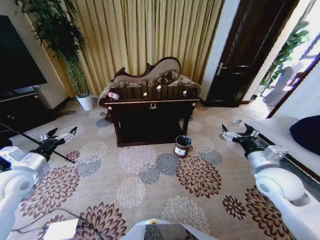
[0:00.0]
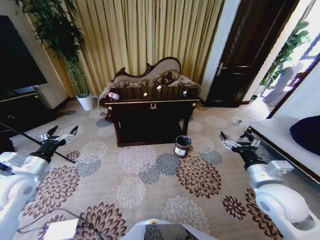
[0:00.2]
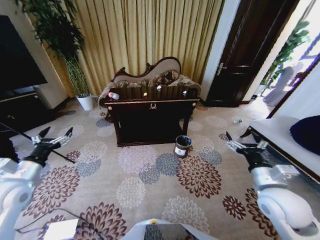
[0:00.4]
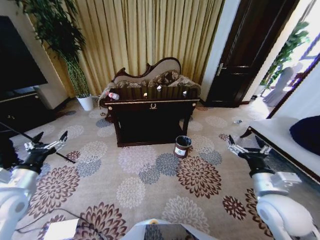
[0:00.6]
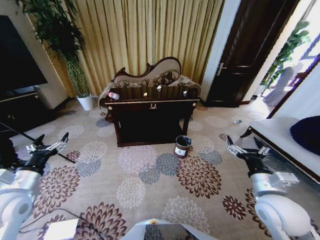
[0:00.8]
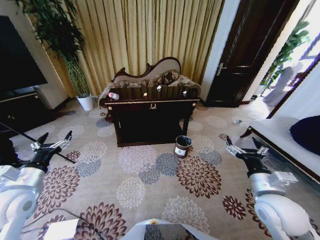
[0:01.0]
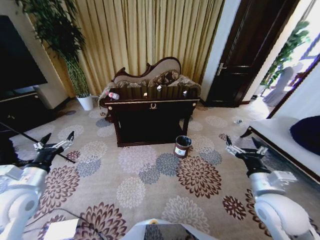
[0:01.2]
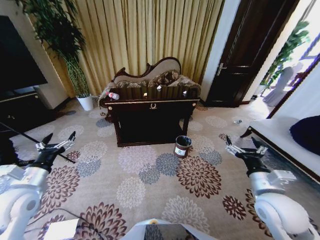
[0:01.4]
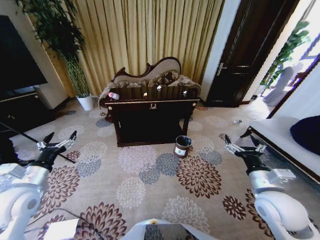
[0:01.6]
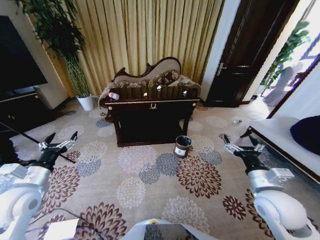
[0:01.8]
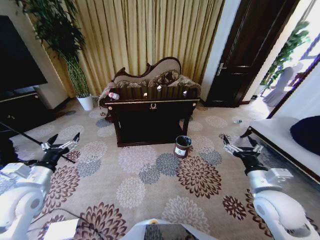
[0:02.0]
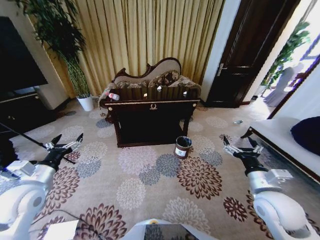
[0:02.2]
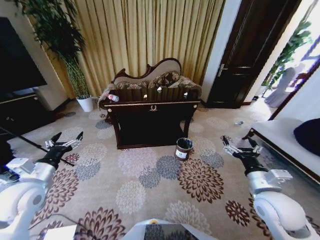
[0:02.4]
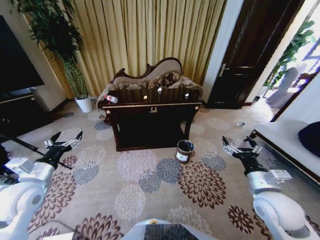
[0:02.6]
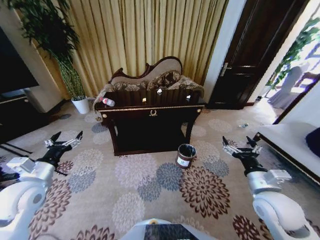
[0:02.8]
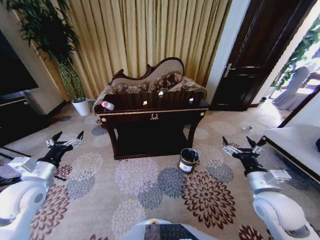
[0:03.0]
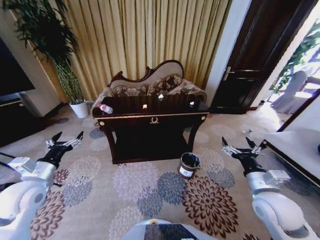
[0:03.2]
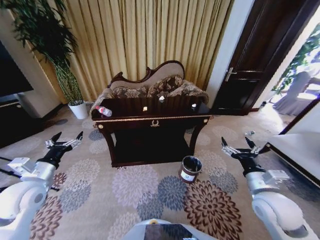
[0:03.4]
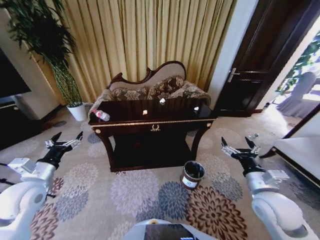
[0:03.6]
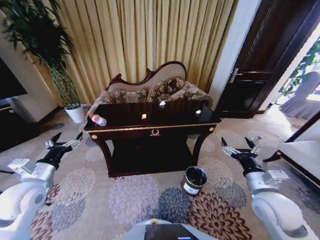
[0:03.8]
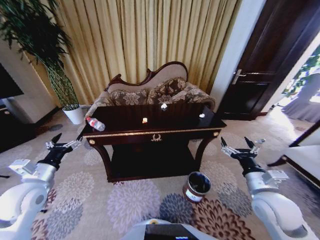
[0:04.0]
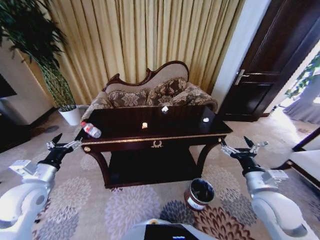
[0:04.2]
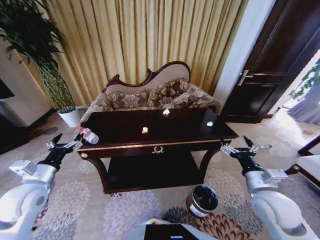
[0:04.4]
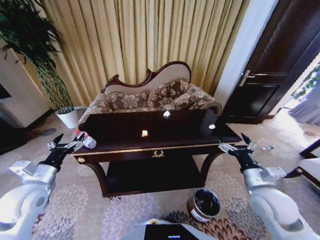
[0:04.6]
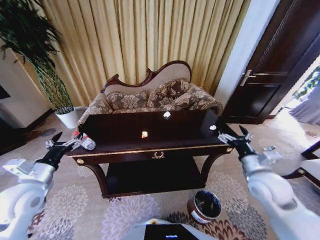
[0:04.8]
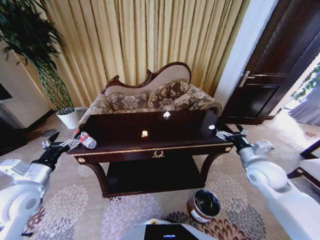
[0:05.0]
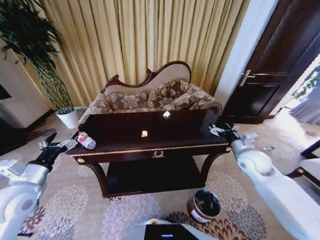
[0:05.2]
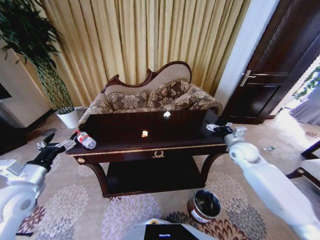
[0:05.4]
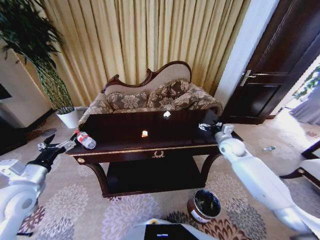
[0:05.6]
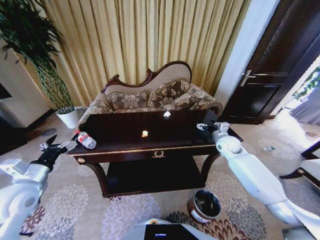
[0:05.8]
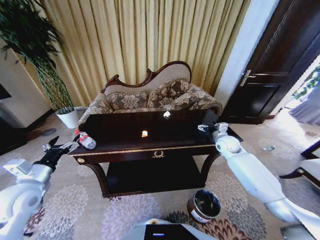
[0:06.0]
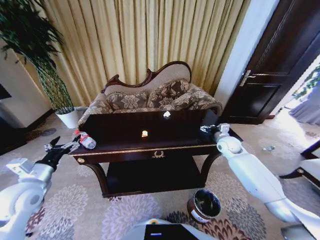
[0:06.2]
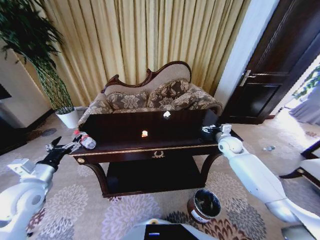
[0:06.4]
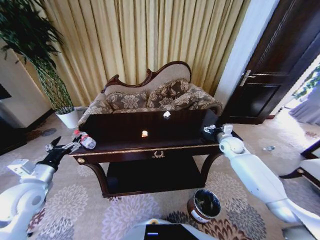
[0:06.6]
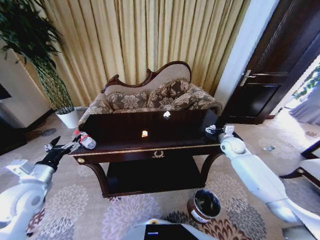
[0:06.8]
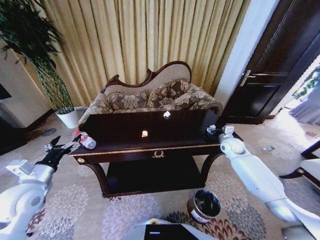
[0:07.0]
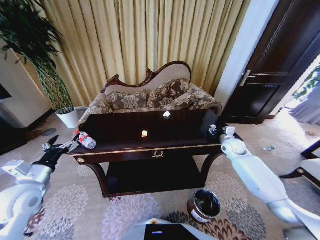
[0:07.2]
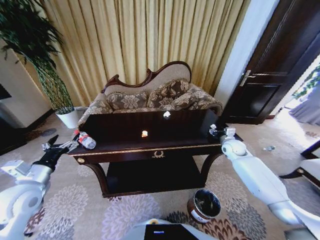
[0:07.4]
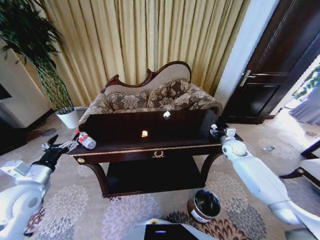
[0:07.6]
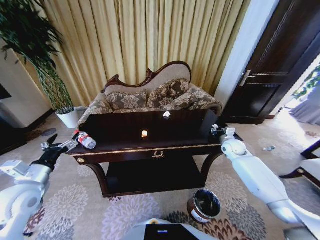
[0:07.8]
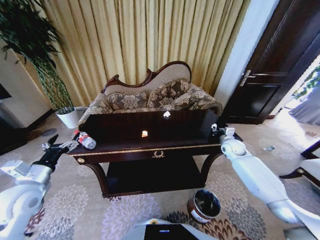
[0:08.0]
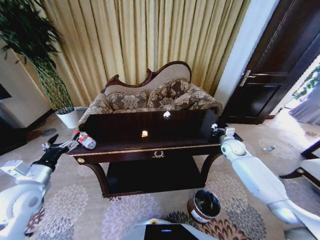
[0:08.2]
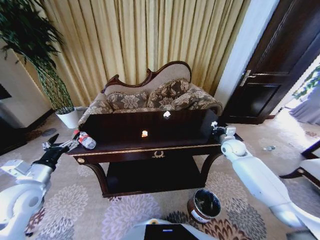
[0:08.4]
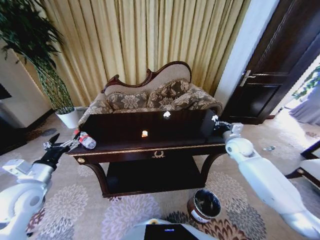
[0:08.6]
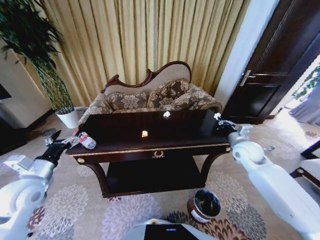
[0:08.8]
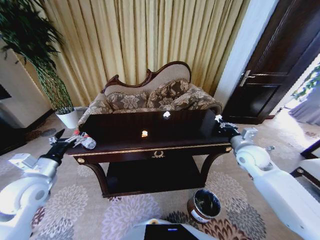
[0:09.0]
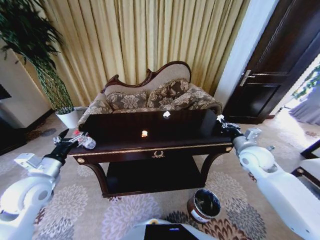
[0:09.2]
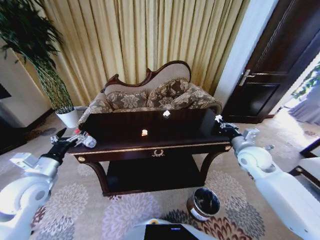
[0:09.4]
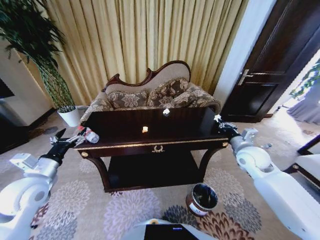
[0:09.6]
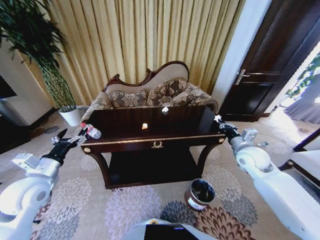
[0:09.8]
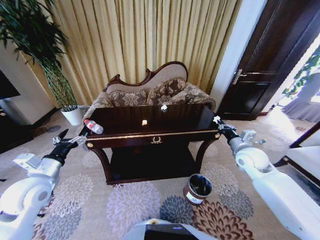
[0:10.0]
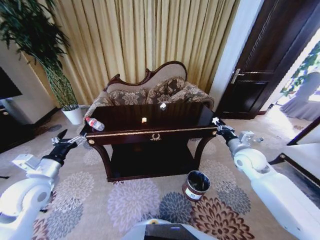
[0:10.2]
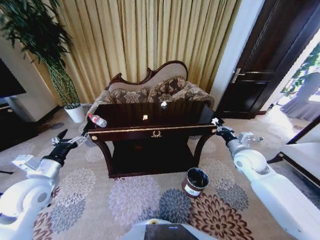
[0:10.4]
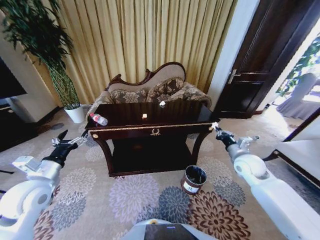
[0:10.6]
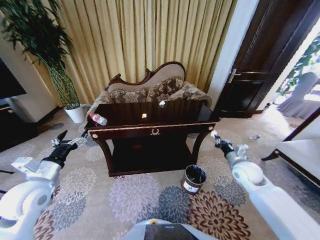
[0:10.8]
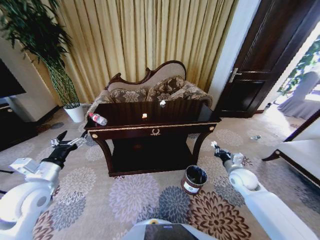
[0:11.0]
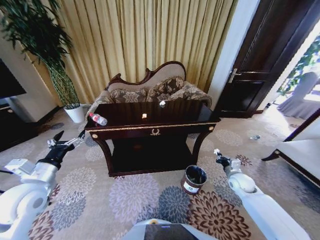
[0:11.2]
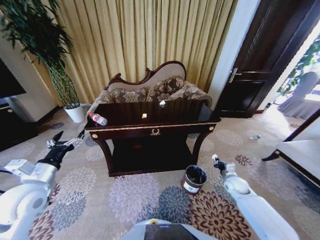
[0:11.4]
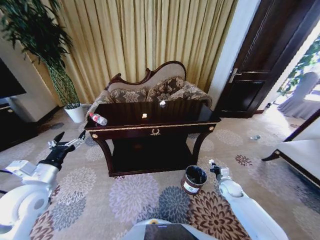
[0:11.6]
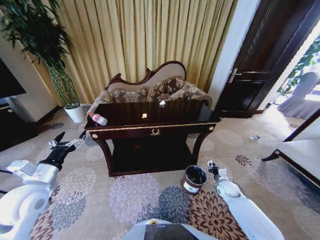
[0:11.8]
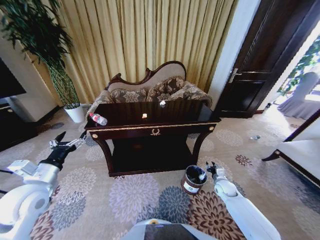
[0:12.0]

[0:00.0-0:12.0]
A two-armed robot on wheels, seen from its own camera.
Task of the whole recording: Move to the front of the table and place the trash on the table into the trash bin.
0:04.4 to 0:06.0: The right gripper goes some 25 cm forward.
0:06.0 to 0:07.6: The right gripper travels to the right by about 5 cm, and closes up.
0:07.6 to 0:09.0: The right gripper goes some 15 cm backward and upward, and closes.
0:10.4 to 0:12.0: The right gripper moves downward, about 25 cm, and opens up.

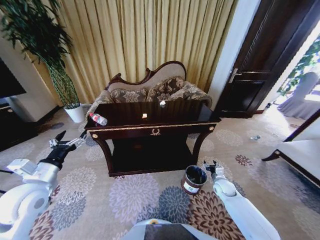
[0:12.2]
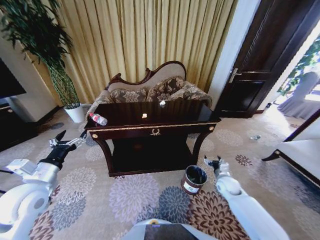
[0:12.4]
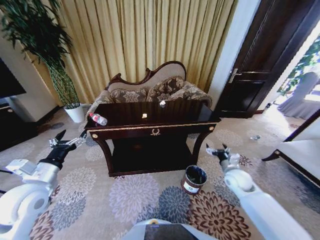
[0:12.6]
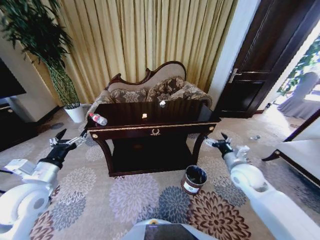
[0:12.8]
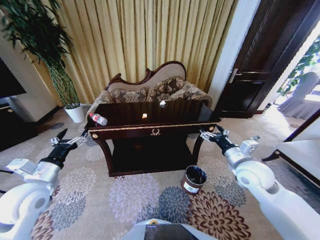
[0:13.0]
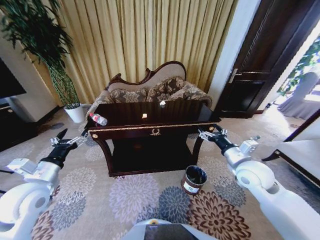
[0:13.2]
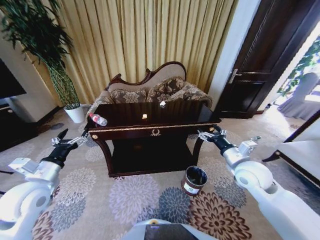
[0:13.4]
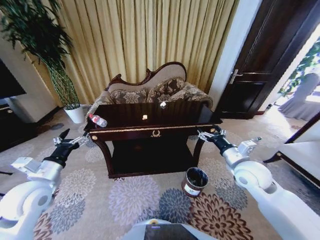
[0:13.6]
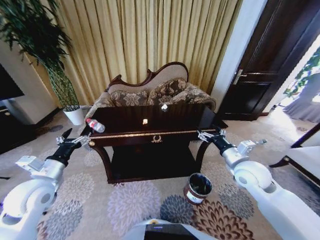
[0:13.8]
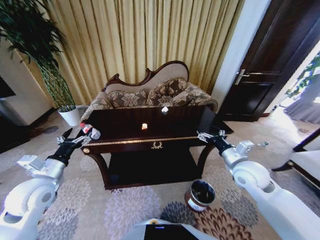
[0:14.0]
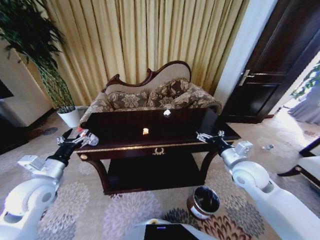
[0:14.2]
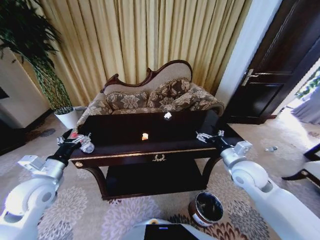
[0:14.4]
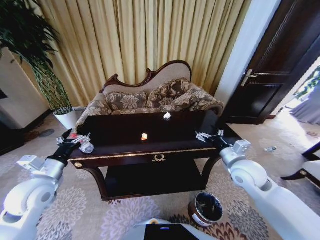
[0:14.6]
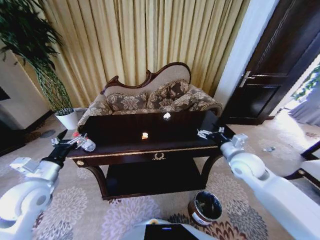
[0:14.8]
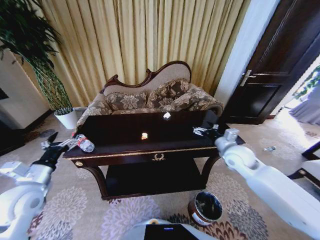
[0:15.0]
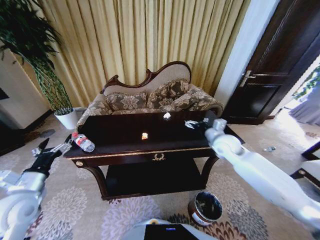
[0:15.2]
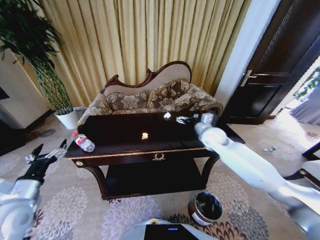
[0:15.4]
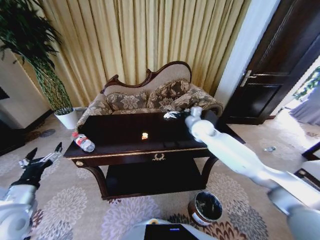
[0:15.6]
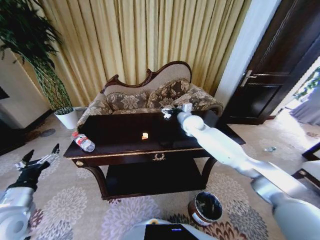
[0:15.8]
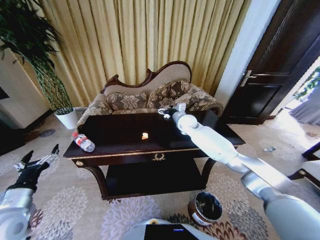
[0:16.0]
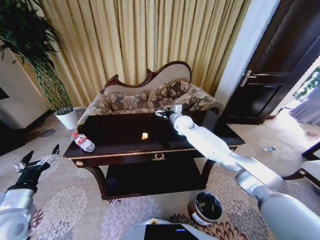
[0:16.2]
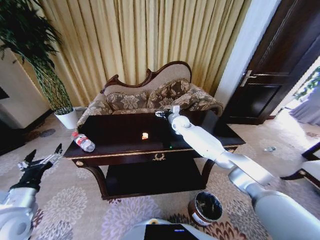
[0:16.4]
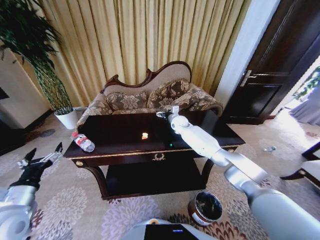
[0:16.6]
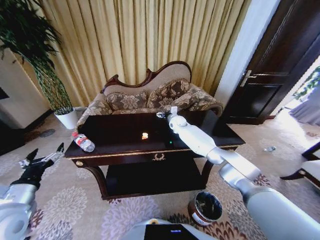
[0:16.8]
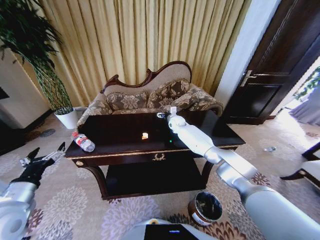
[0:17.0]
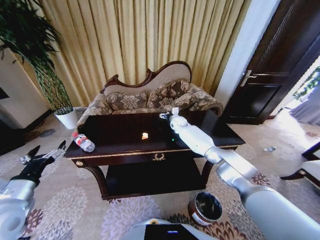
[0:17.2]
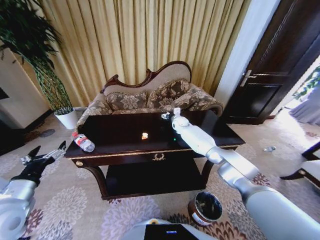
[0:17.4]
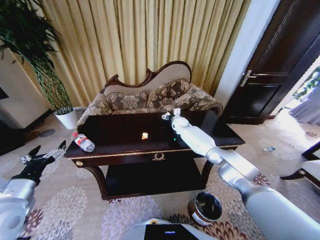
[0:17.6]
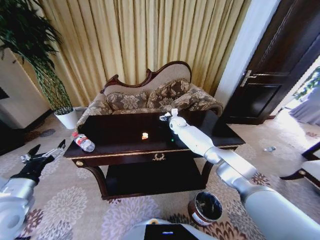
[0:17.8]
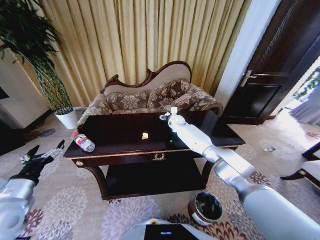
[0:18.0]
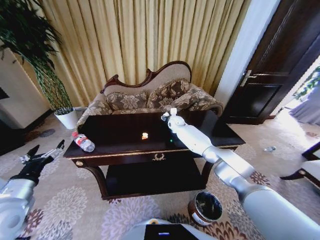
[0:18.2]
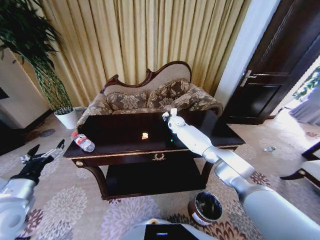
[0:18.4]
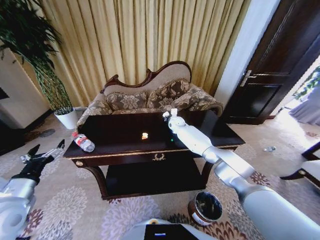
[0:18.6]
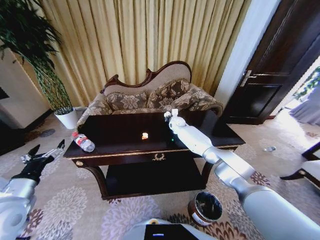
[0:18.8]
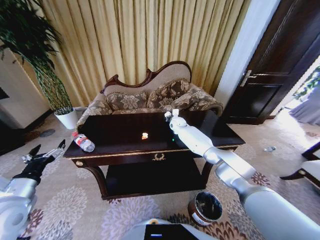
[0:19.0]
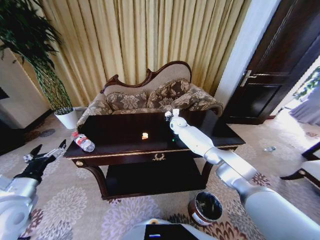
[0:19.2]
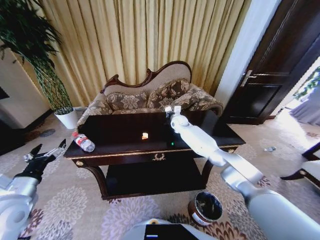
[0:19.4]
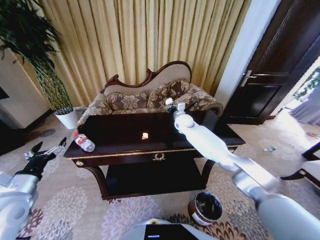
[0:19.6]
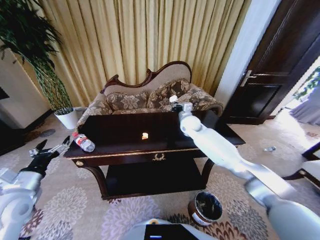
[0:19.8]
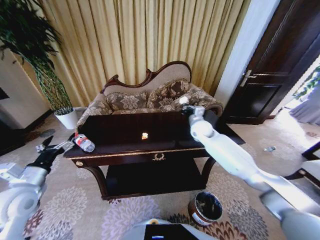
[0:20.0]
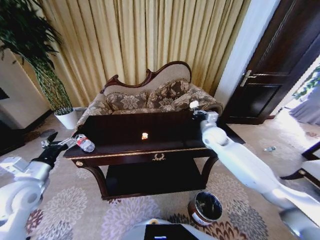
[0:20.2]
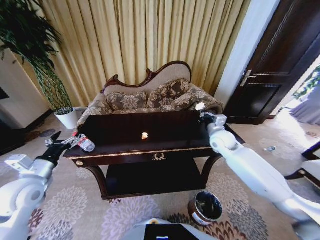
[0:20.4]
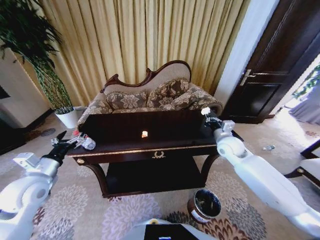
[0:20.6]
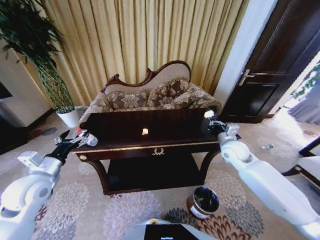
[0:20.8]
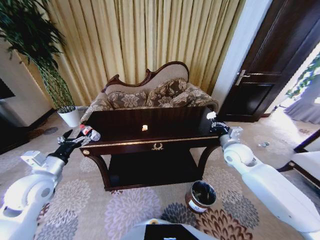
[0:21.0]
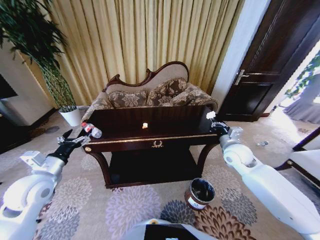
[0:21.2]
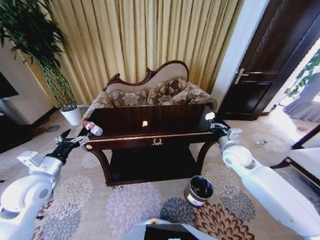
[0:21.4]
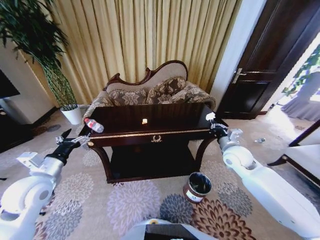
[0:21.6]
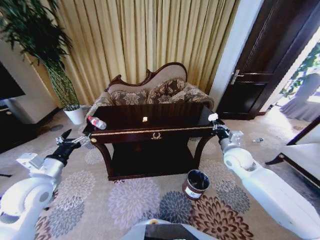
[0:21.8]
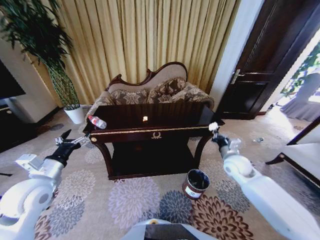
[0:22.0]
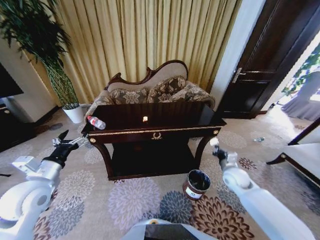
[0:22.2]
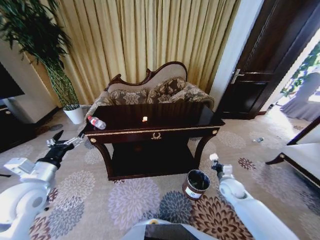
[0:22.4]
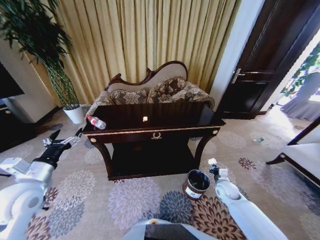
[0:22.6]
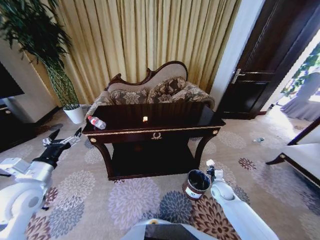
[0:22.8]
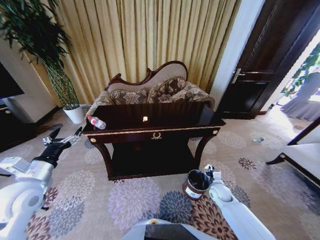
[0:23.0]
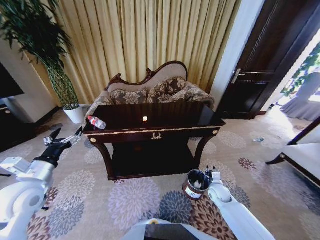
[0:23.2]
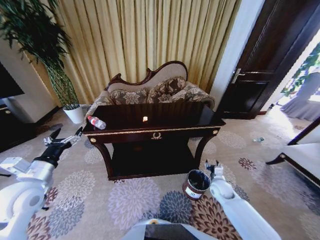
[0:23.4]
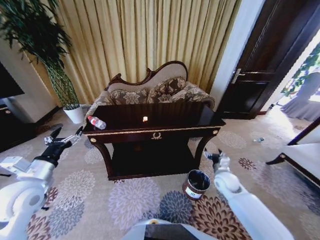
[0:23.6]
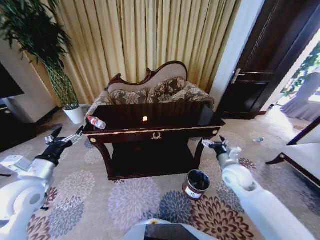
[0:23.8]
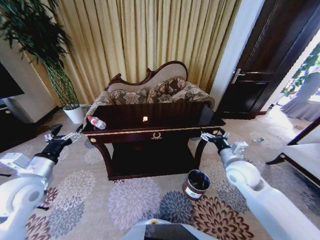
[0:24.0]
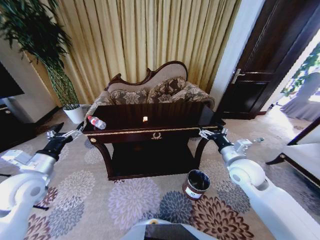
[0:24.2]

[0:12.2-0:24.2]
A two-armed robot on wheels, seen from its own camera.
Task of the whole recording: Move to the front of the table and place the trash on the table into the trash bin.
0:12.2 to 0:13.8: The right gripper goes roughly 25 cm upward, and opens its fingers.
0:13.8 to 0:15.2: The left gripper changes place by roughly 5 cm. Meanwhile the right gripper shifts some 15 cm forward.
0:15.2 to 0:16.6: The right gripper is displaced forward and to the left by approximately 25 cm.
0:16.6 to 0:18.2: The grippers make only small movements.
0:18.2 to 0:19.8: The right gripper is displaced backward and upward by about 10 cm, and closes up.
0:19.8 to 0:21.2: The right gripper travels backward and to the right by roughly 25 cm, while the left gripper moves about 5 cm.
0:21.2 to 0:22.6: The right gripper shifts some 25 cm downward.
0:22.6 to 0:24.2: The right gripper is displaced upward by roughly 25 cm, and opens up.
